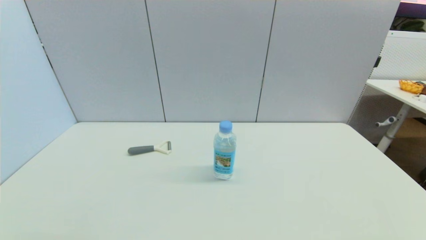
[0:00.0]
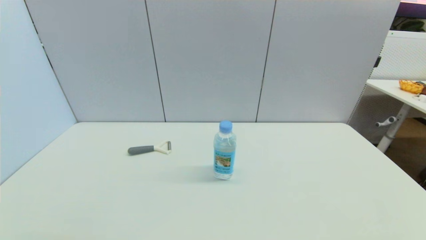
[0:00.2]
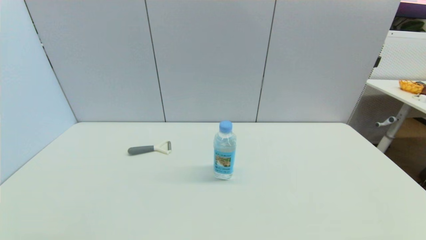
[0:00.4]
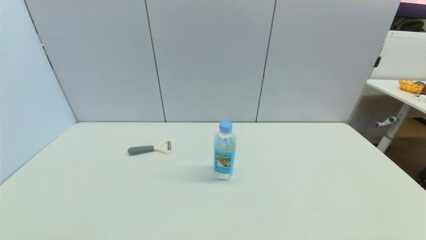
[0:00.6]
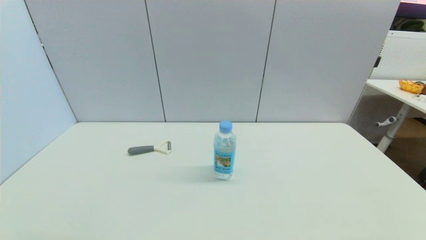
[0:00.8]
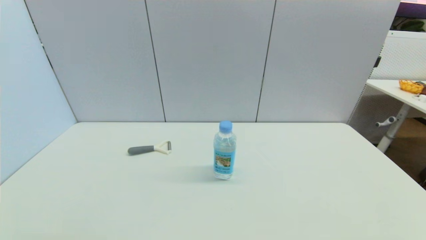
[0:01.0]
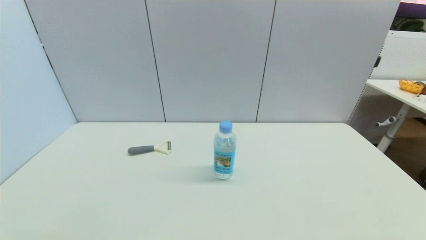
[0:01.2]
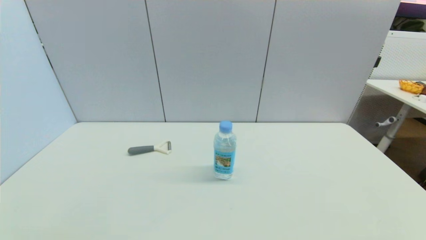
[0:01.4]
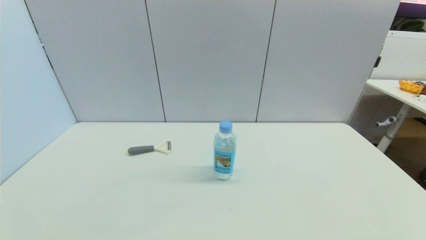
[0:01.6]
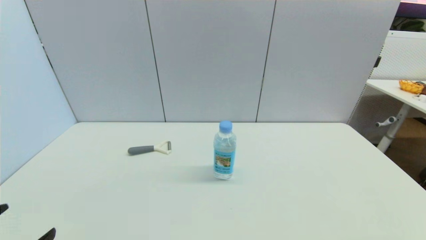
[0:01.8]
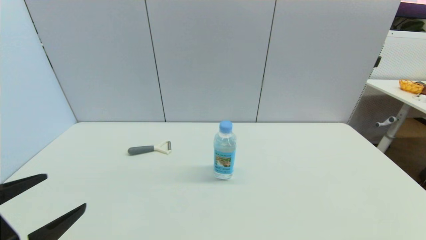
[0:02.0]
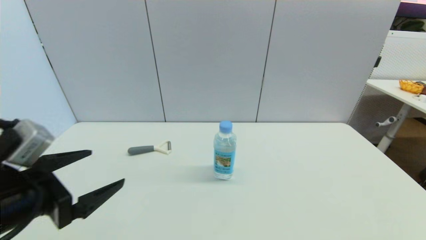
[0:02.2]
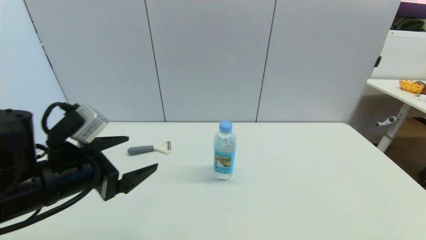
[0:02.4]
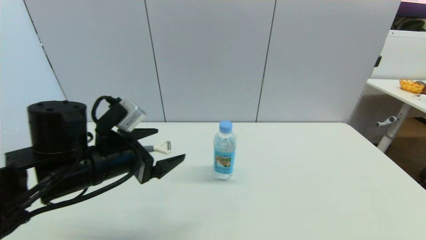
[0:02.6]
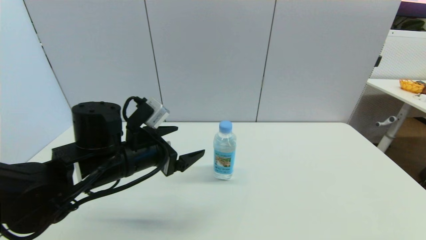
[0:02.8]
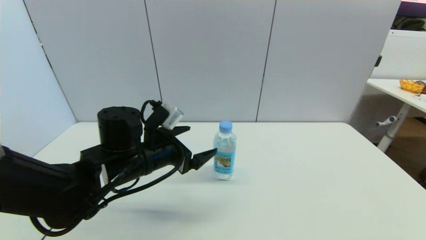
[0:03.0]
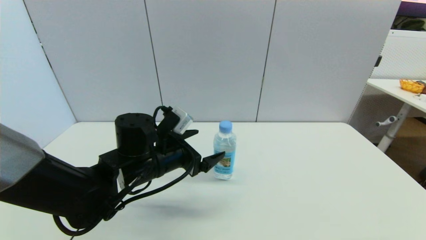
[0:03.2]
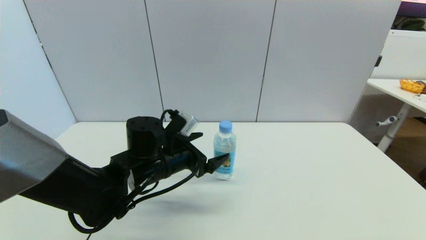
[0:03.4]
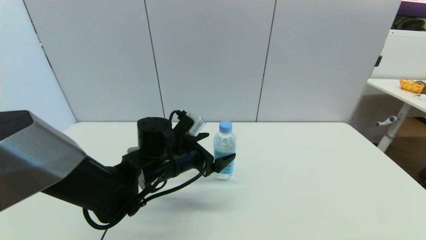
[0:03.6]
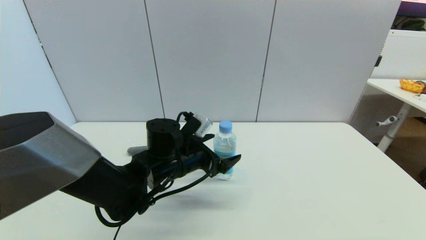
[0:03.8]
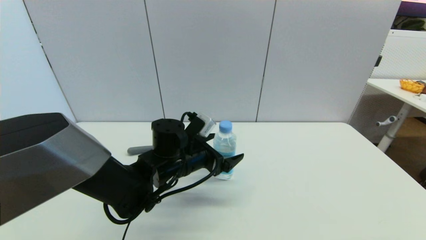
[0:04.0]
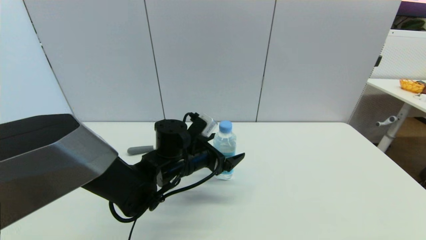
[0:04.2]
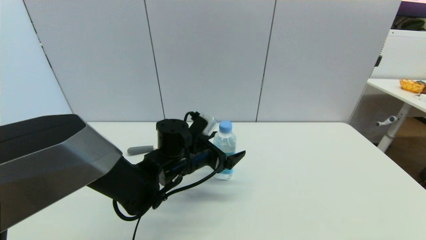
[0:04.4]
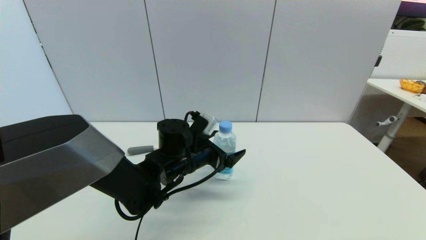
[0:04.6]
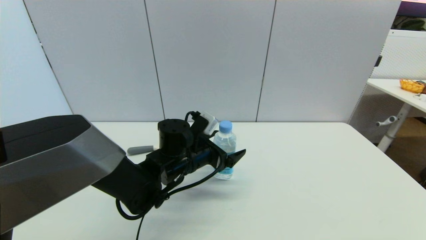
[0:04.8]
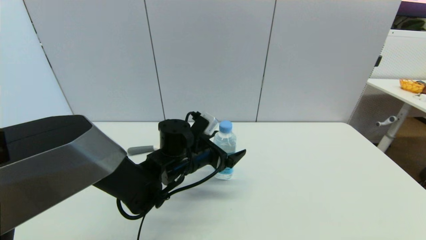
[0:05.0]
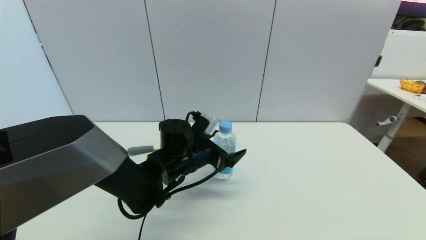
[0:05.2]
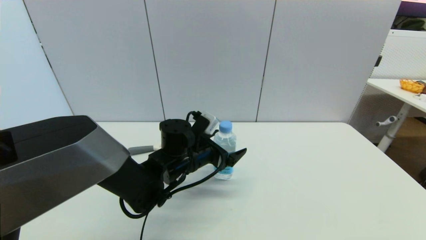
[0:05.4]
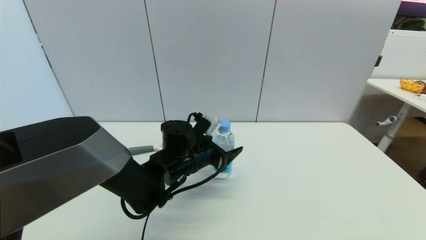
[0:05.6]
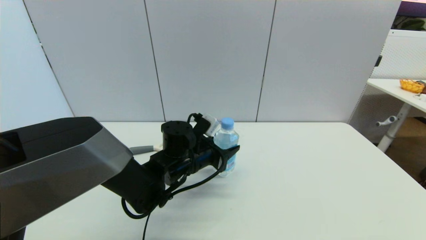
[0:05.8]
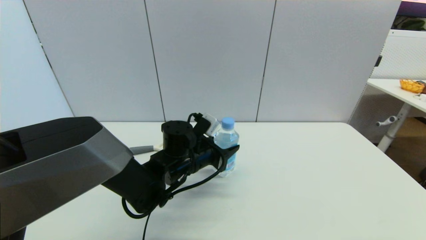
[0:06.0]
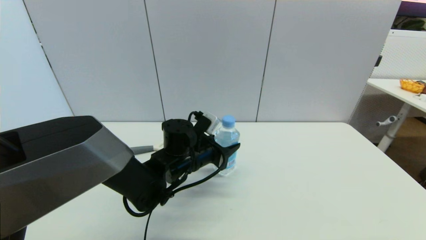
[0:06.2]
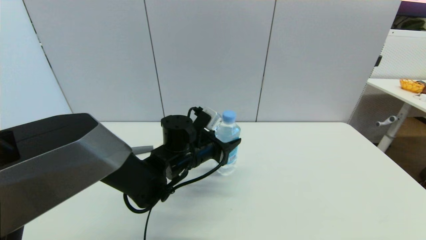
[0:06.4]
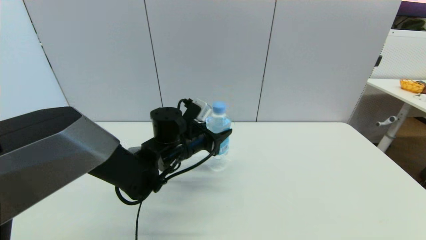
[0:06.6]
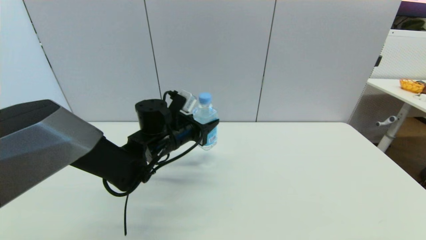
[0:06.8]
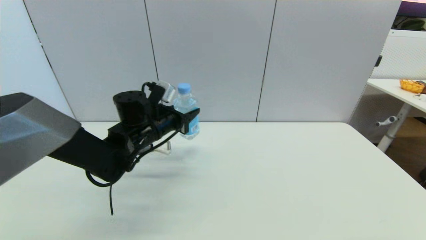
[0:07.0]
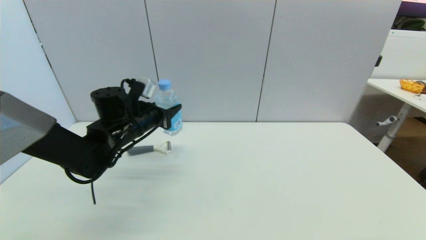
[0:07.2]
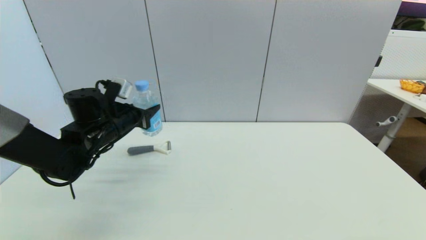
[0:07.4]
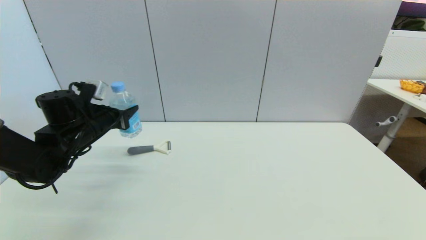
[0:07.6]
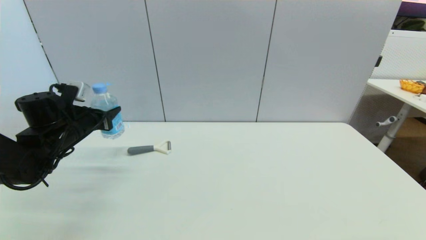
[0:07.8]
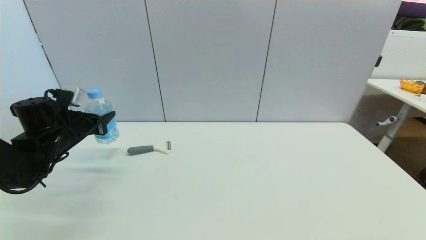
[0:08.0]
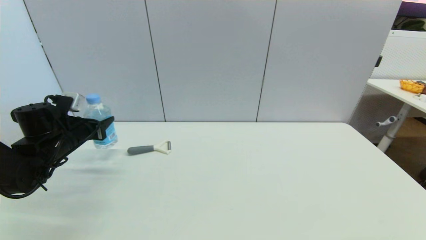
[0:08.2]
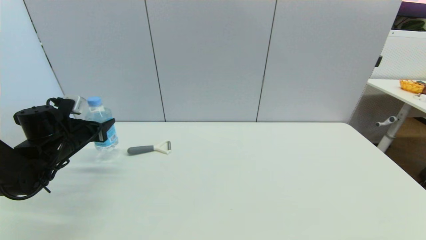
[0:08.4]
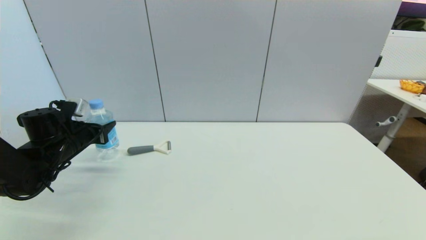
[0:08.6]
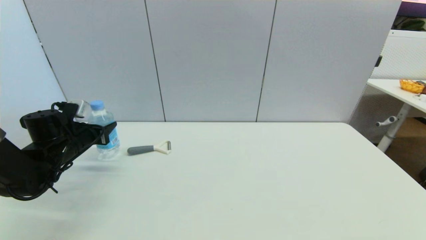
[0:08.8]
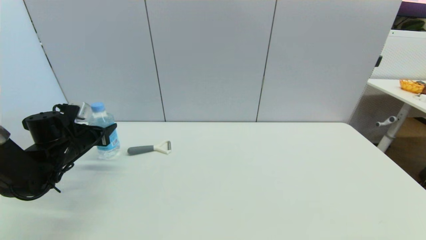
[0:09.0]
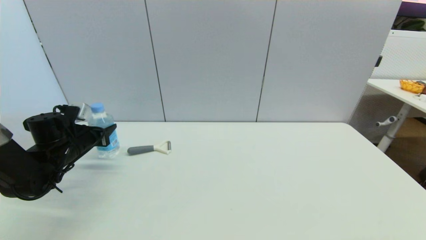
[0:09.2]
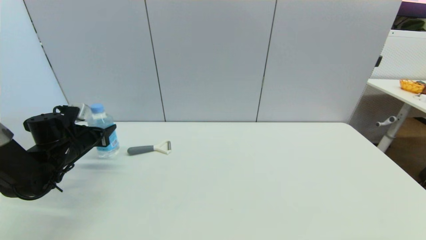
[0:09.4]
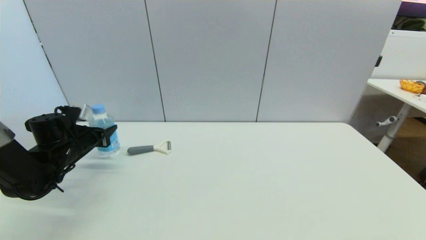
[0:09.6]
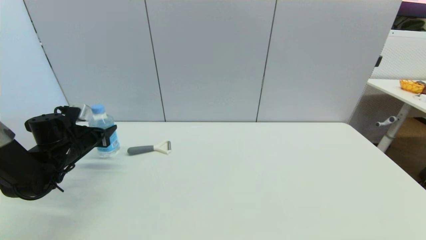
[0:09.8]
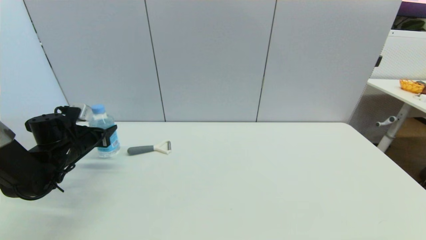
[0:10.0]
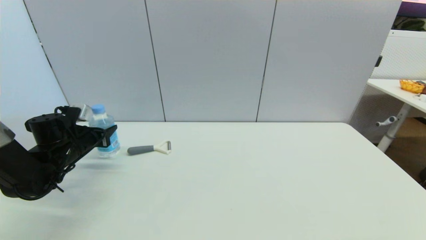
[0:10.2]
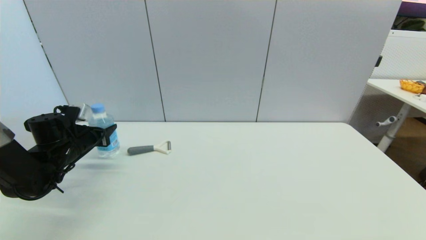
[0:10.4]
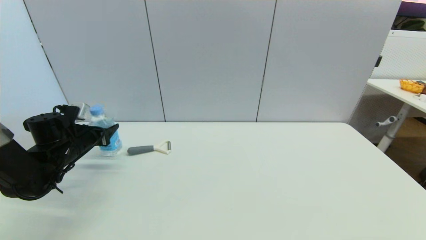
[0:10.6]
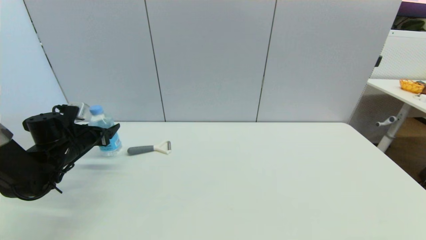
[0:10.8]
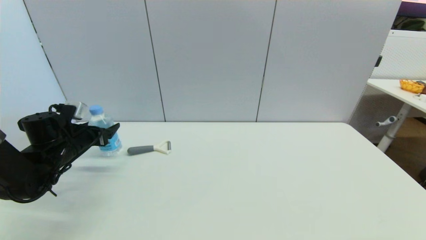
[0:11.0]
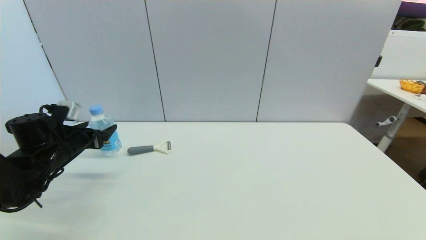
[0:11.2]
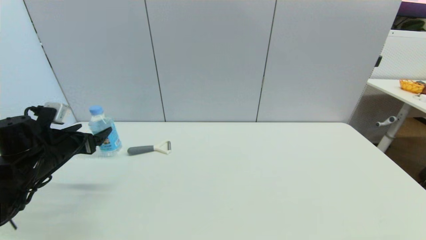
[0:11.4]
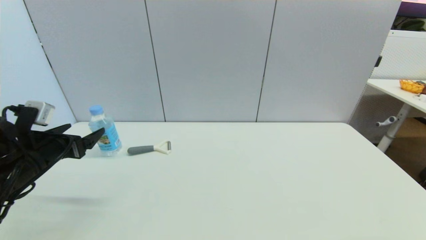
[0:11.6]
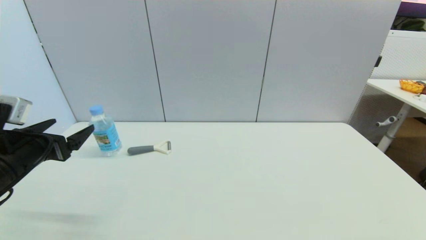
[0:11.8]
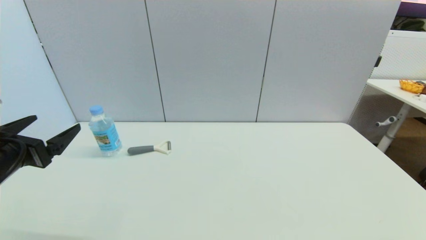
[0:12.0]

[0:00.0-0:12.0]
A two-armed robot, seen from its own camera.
Step, 0:01.6 to 0:05.8: Grasp the soda water with left gripper.
Step, 0:06.0 to 0:10.8: Place the soda water on the table with left gripper.
0:01.6 to 0:03.0: The left gripper travels forward and to the right by some 30 cm.
0:03.0 to 0:04.4: The left gripper is displaced to the right by roughly 5 cm.
0:04.4 to 0:06.0: The left gripper closes up.
0:06.0 to 0:07.6: The left gripper is displaced to the left by approximately 25 cm.
0:07.6 to 0:09.0: The left gripper goes approximately 10 cm to the left and downward.
0:09.0 to 0:10.4: Both grippers stay put.
0:10.4 to 0:12.0: The left gripper moves backward and upward, some 20 cm, and opens up.

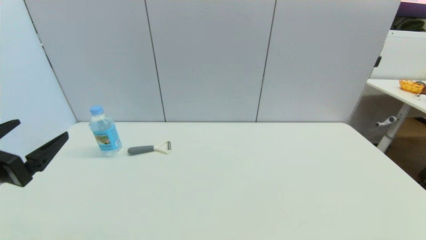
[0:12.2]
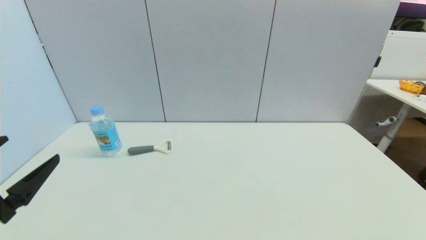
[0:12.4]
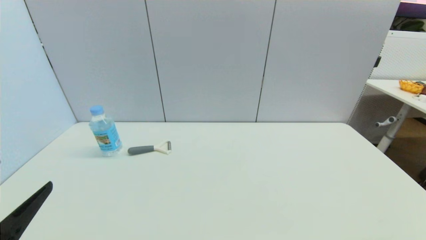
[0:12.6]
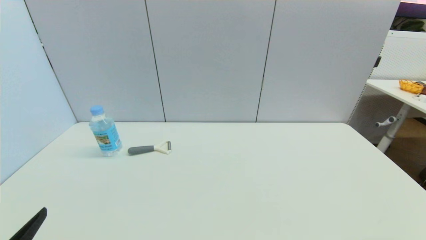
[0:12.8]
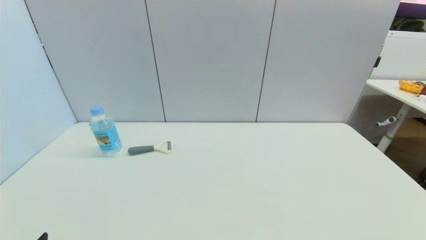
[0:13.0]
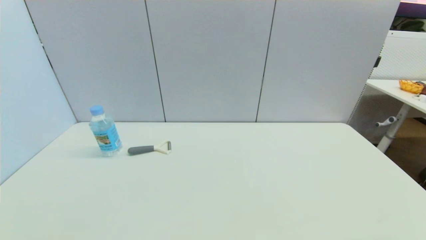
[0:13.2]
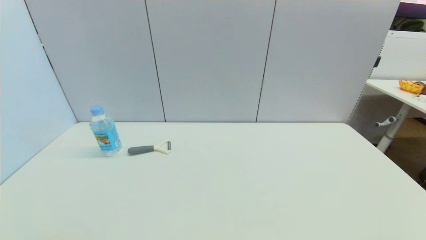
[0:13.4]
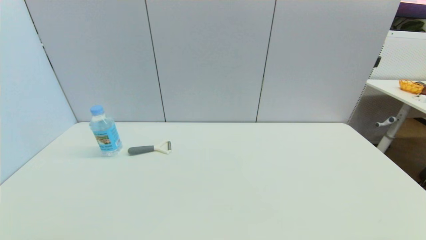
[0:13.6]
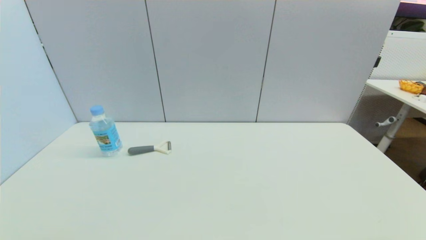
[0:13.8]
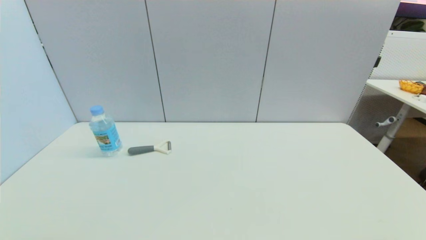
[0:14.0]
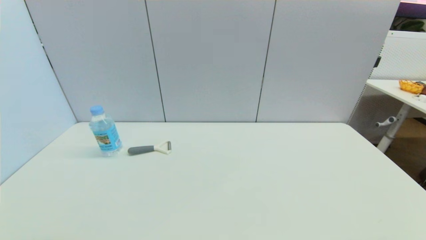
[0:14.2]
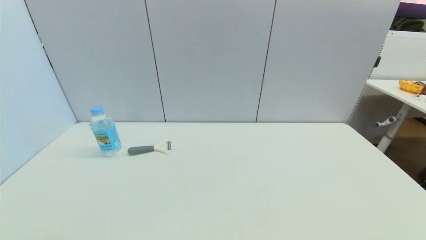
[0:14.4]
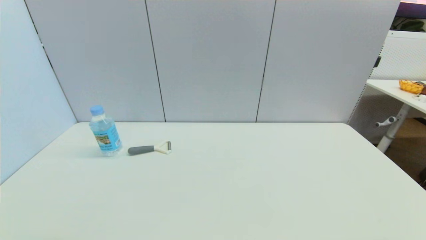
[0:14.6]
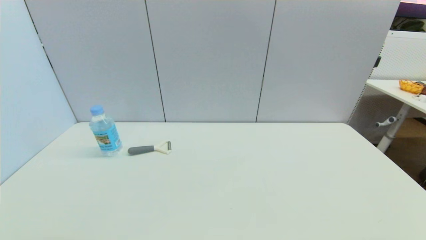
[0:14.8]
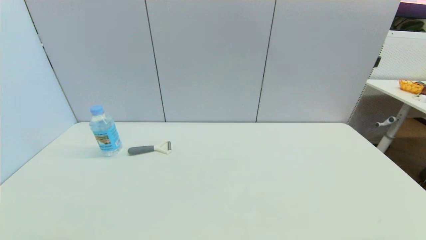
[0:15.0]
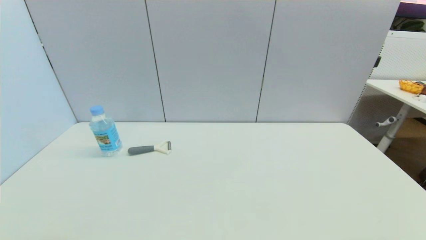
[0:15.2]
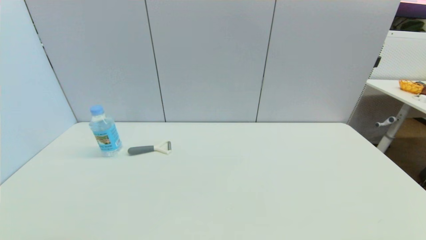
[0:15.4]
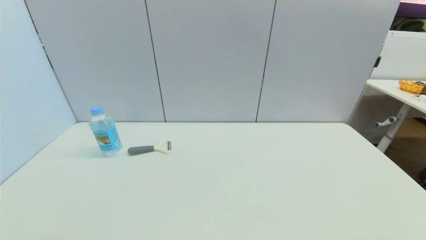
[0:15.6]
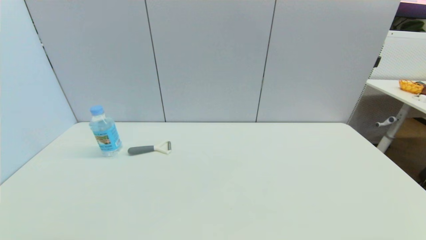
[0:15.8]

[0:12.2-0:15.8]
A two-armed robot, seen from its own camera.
0:12.2 to 0:14.0: The left gripper moves backward and downward, some 20 cm.
0:14.0 to 0:15.8: Both grippers stay put.
